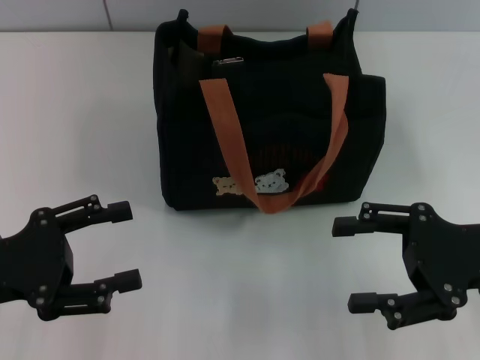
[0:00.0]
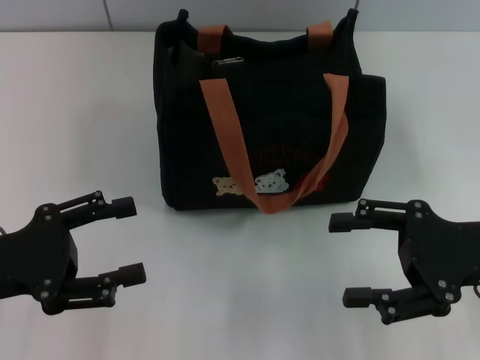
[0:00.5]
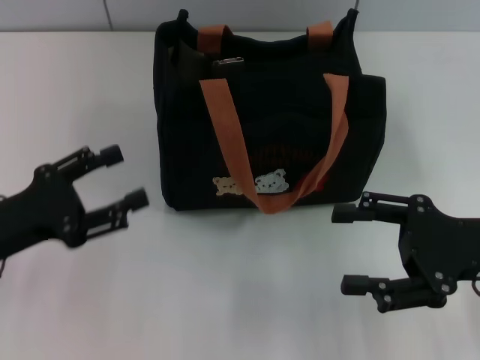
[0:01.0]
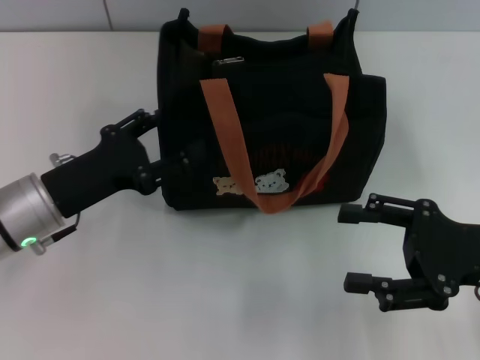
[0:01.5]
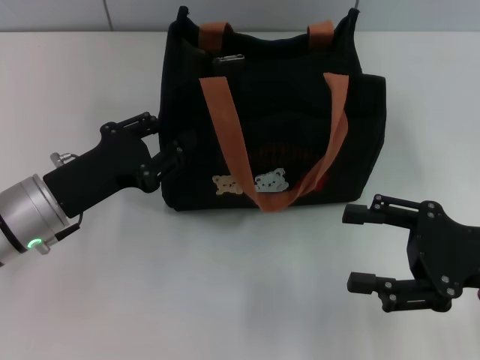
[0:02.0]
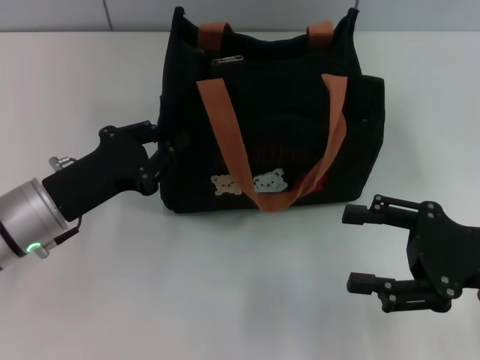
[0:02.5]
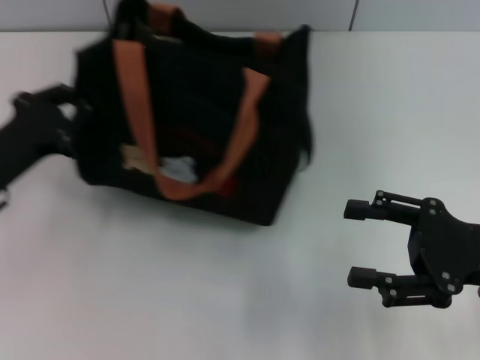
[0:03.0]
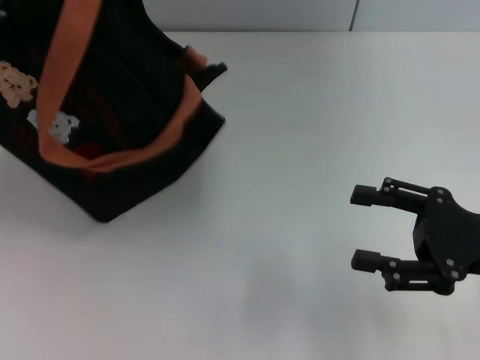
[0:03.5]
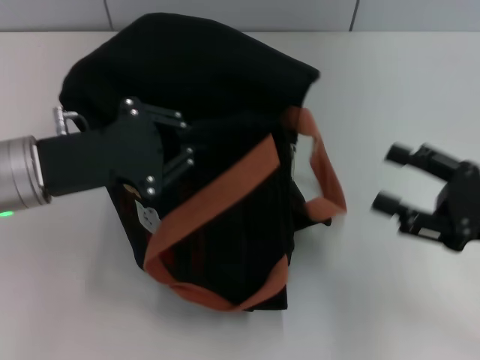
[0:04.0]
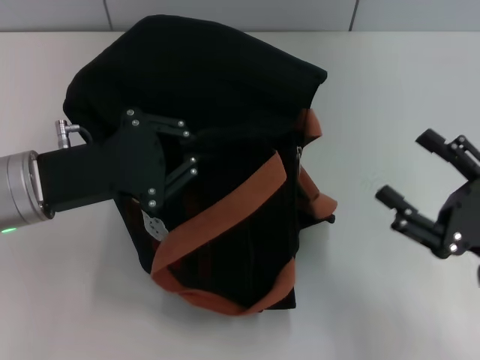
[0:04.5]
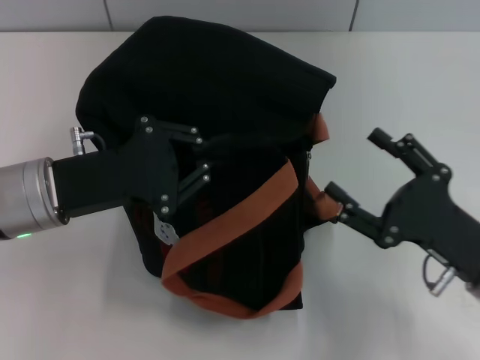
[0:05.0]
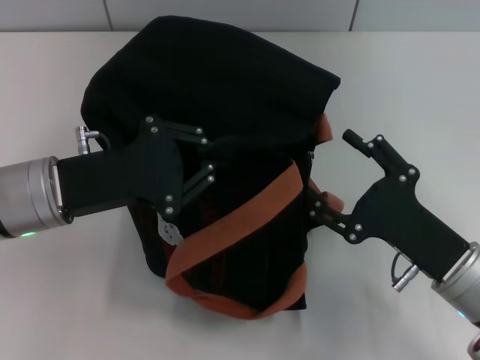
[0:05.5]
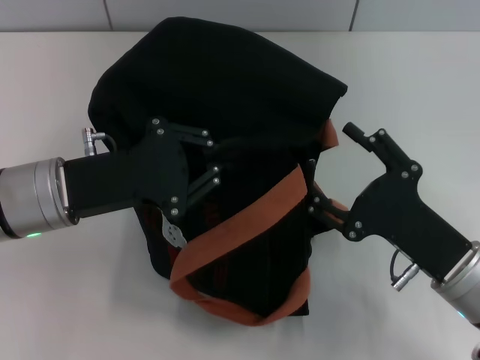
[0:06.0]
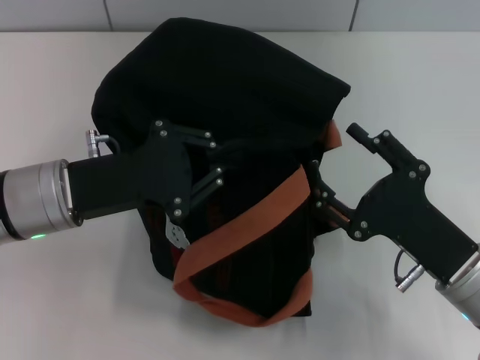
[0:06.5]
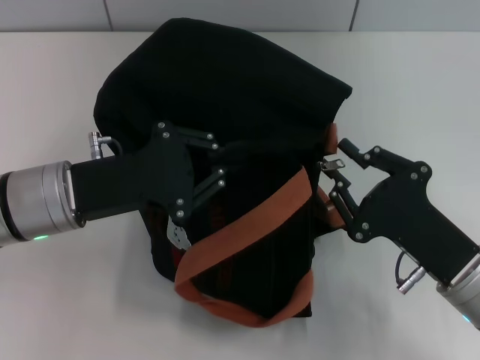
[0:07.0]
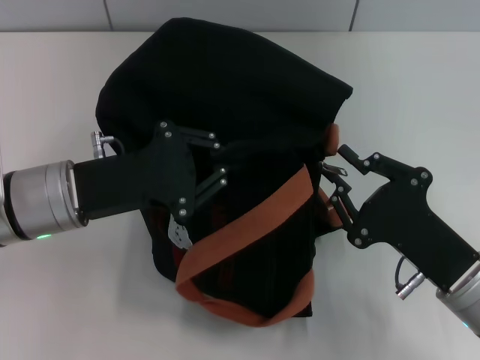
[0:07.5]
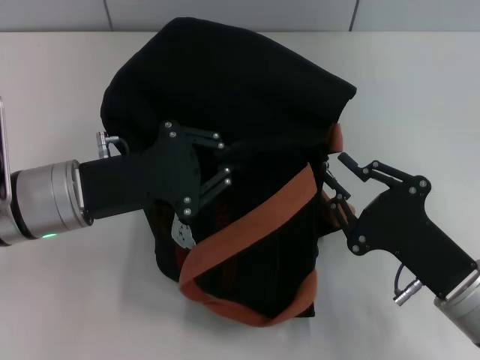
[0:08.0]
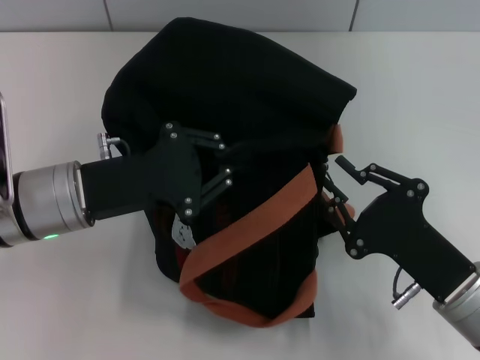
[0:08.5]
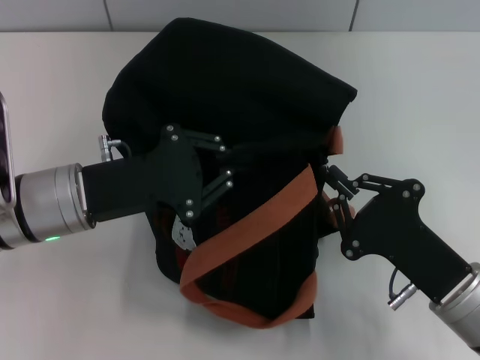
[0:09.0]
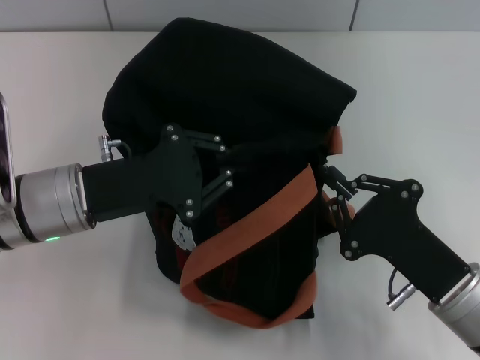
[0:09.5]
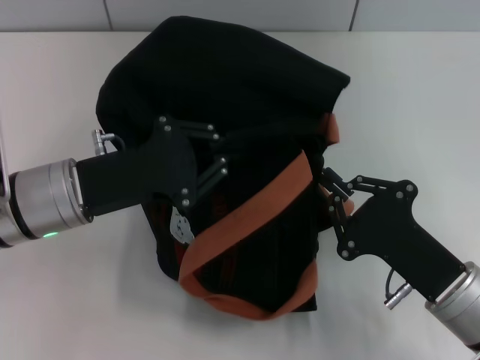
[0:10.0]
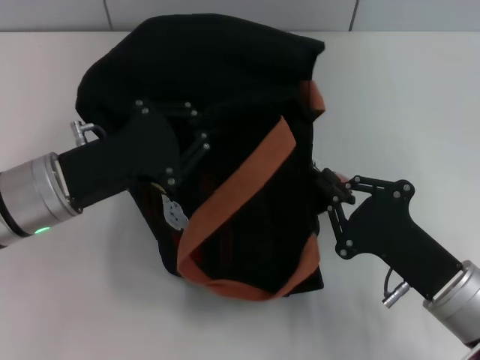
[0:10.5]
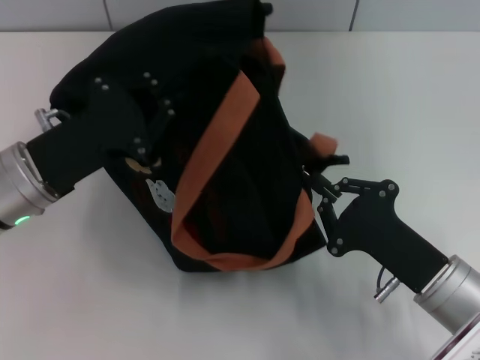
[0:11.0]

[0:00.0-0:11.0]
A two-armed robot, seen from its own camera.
0:00.0 to 0:02.0: The left gripper travels forward and to the right by roughly 10 cm.
0:02.0 to 0:03.5: The left gripper goes approximately 15 cm upward and to the left, and closes up.
0:03.5 to 0:05.5: The left gripper heads to the right and downward, covering some 15 cm. The right gripper shifts approximately 10 cm to the left and downward.
0:05.5 to 0:07.5: The right gripper closes.
0:07.5 to 0:09.0: The grippers stay close to where they were, moving slightly.

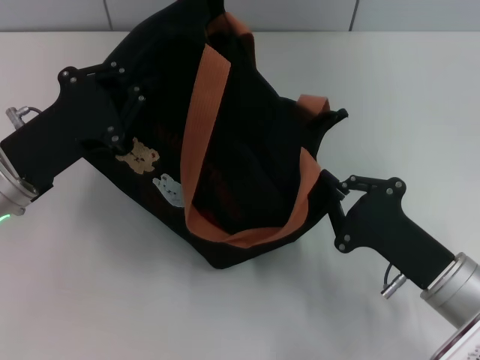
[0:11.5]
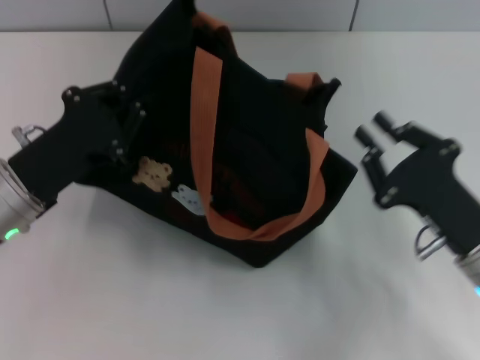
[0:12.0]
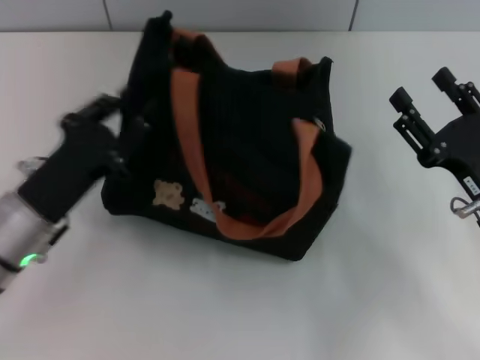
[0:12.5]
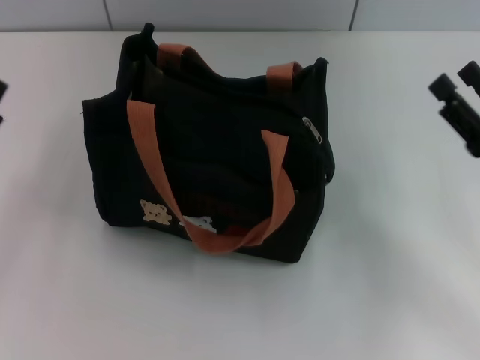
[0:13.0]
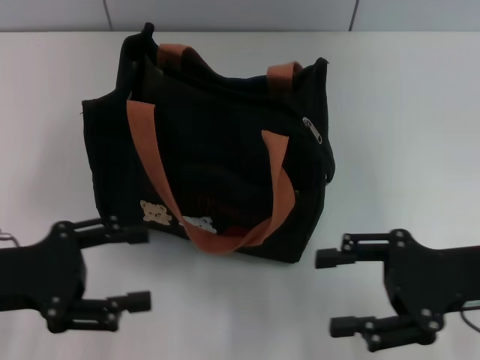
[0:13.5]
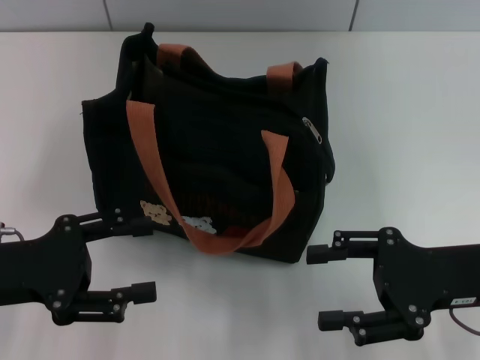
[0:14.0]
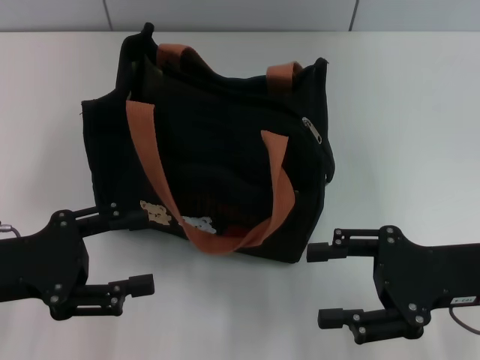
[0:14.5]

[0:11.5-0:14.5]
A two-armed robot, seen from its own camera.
0:11.5 to 0:13.0: The left gripper is displaced backward and to the left by approximately 10 cm, and opens up. Meanwhile the right gripper goes approximately 10 cm to the right, and opens.
0:13.0 to 0:14.5: The right gripper ends up about 5 cm from where it was.

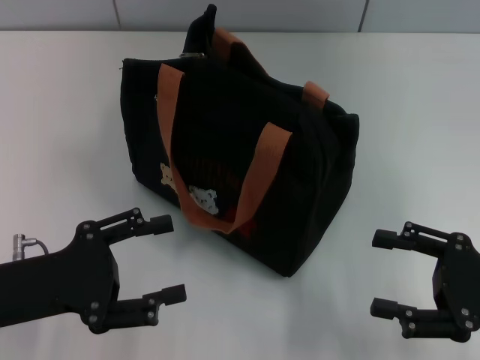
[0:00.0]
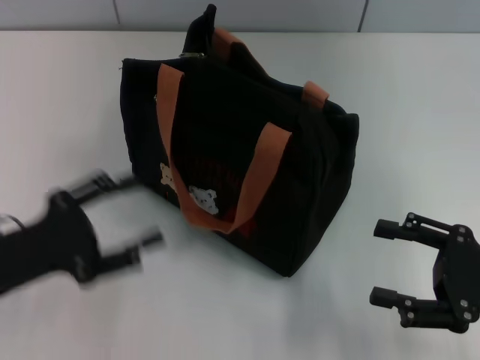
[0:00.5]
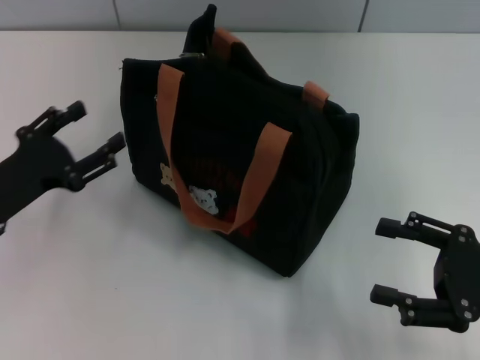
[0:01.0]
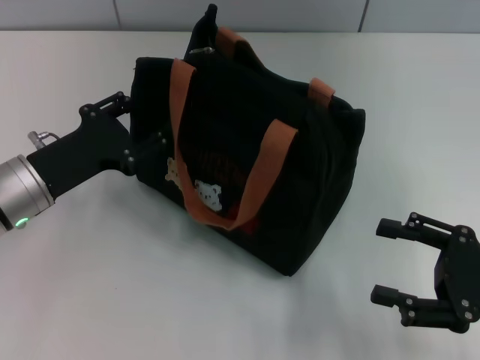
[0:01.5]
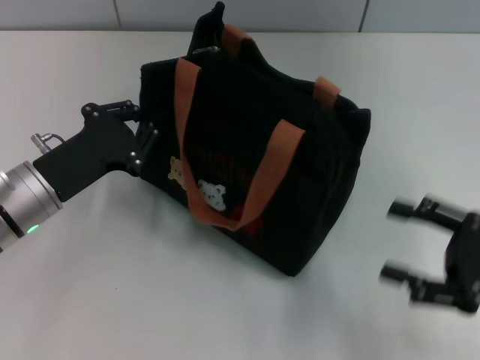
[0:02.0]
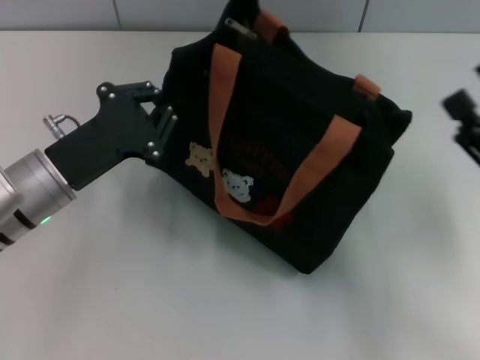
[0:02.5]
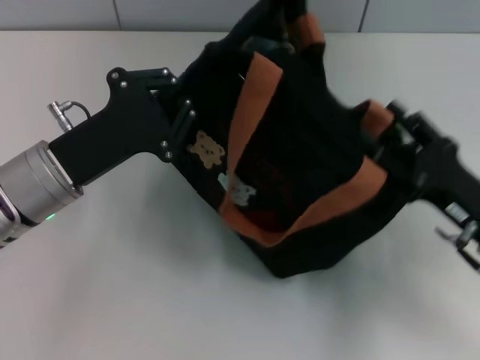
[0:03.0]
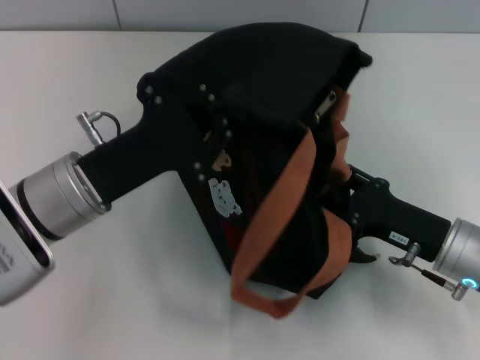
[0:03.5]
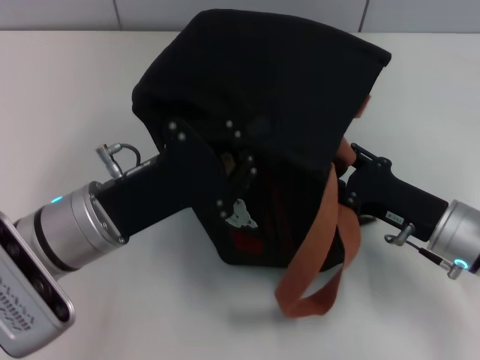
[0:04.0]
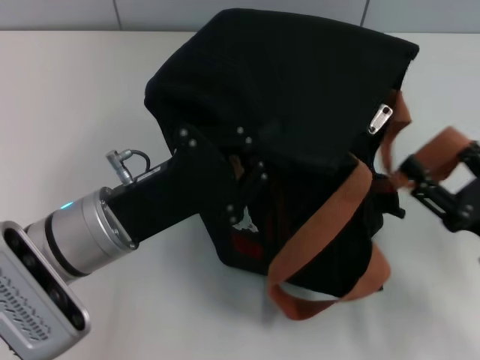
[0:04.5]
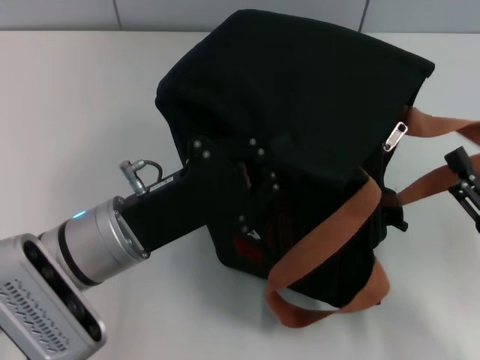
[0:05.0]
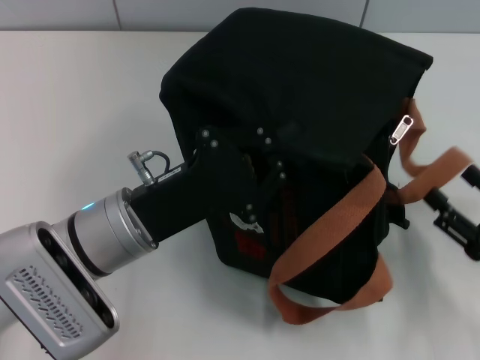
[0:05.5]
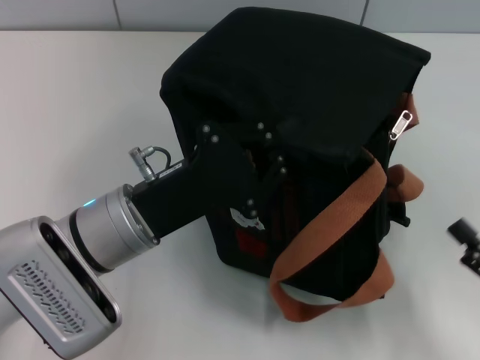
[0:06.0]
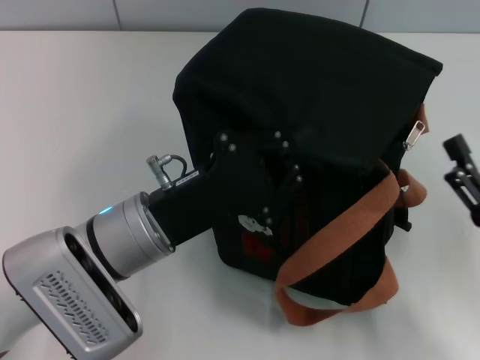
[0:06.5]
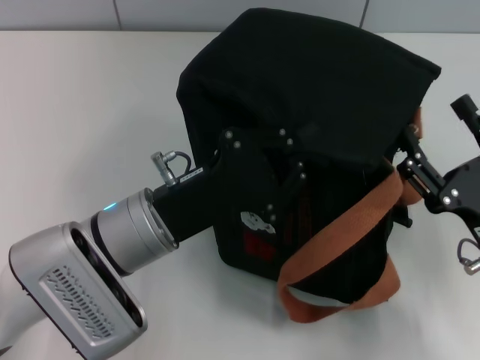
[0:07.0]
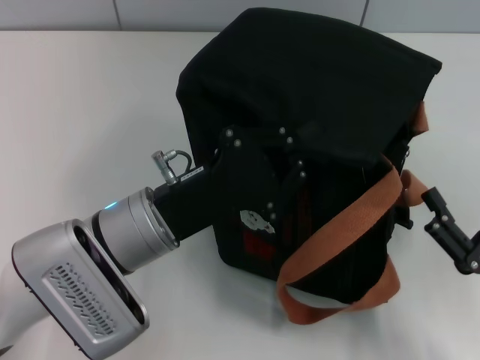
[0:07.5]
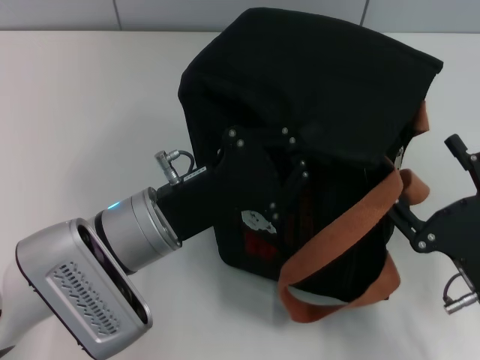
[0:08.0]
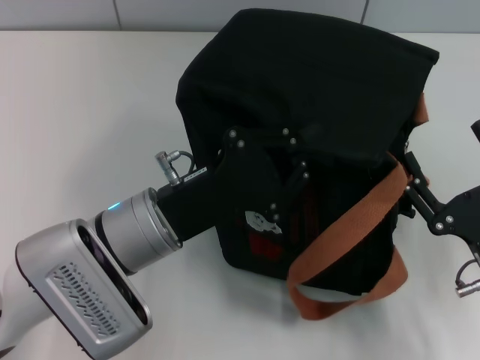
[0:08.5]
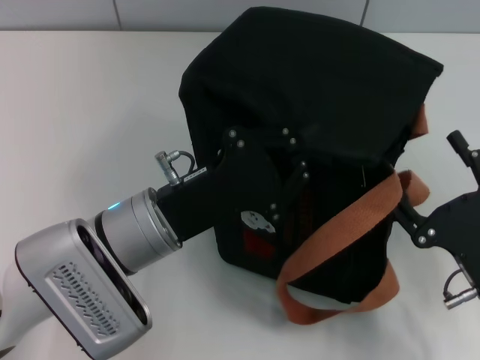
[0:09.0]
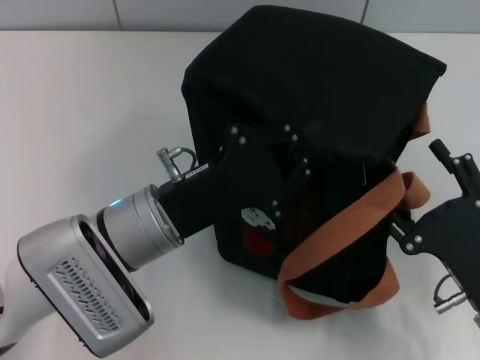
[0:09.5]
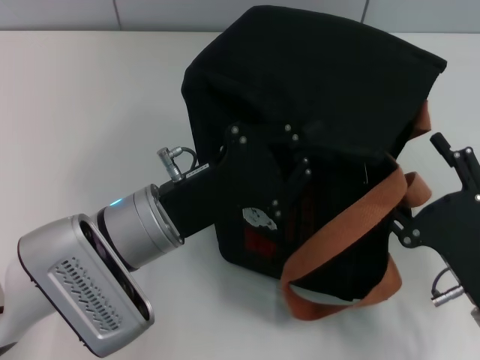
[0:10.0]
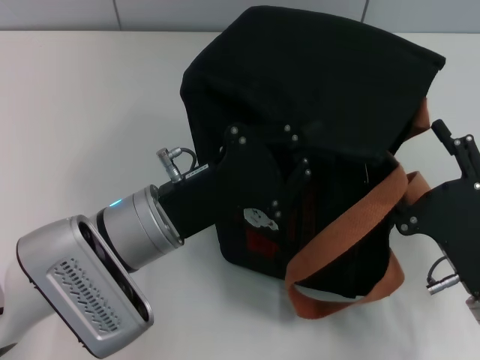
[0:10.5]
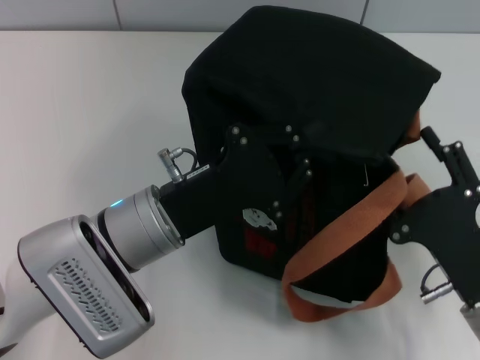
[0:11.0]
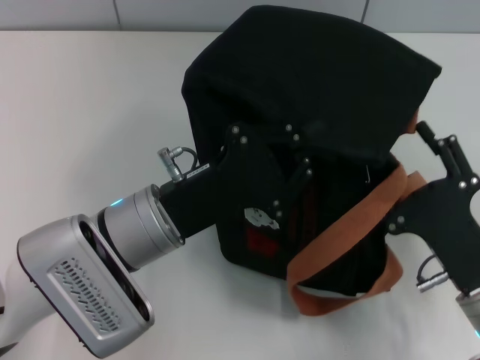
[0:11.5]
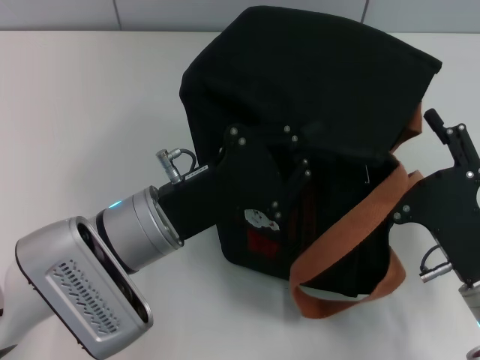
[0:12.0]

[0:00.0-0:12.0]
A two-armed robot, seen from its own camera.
0:00.0 to 0:02.0: The left gripper heads forward, covering approximately 10 cm, and closes.
0:02.0 to 0:04.0: The right gripper goes roughly 10 cm to the left and forward. The left gripper is displaced to the right by approximately 5 cm, and closes its fingers.
0:04.0 to 0:06.0: The right gripper moves backward and to the right, approximately 15 cm.
0:06.0 to 0:08.0: The right gripper heads to the left, covering roughly 10 cm.
0:08.0 to 0:12.0: There are only small adjustments of the grippers.
